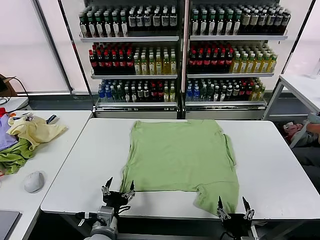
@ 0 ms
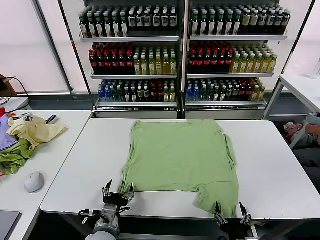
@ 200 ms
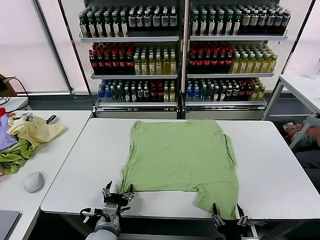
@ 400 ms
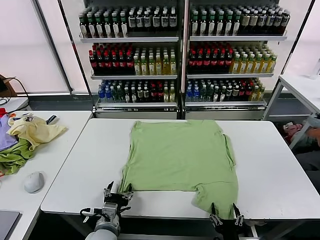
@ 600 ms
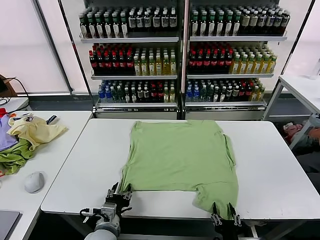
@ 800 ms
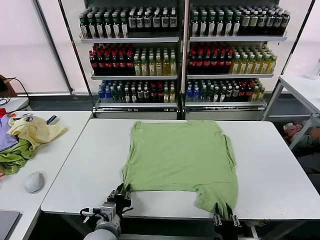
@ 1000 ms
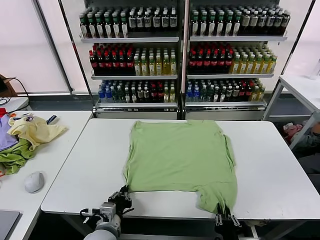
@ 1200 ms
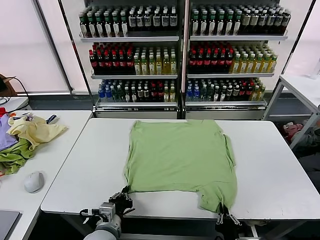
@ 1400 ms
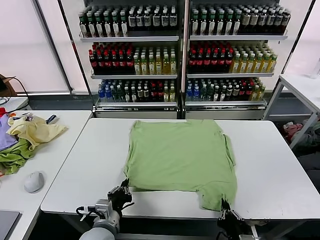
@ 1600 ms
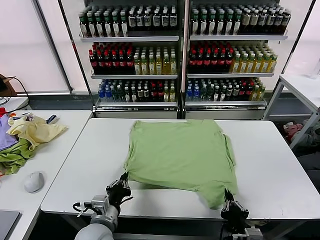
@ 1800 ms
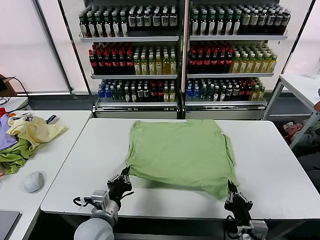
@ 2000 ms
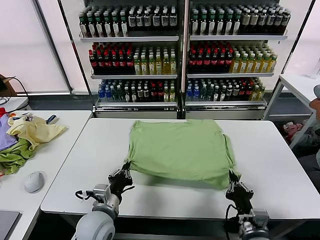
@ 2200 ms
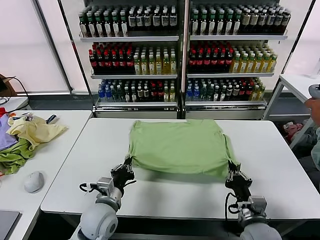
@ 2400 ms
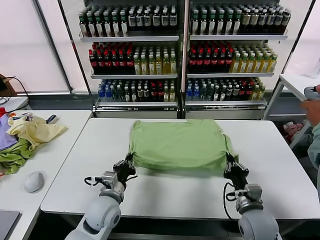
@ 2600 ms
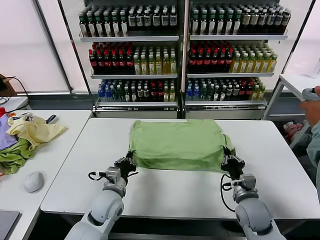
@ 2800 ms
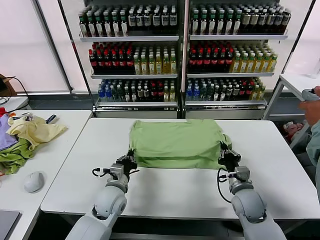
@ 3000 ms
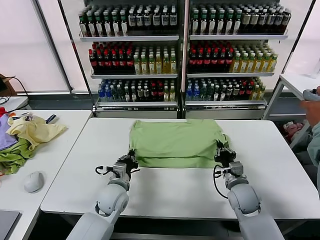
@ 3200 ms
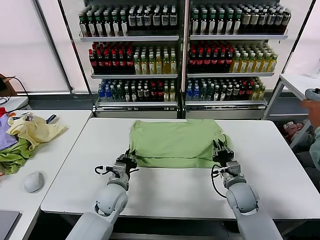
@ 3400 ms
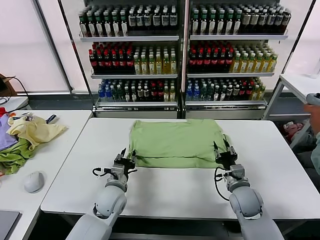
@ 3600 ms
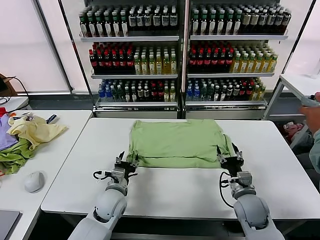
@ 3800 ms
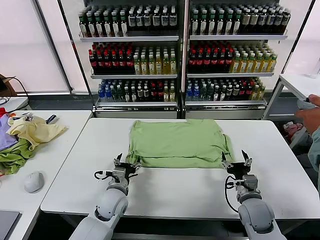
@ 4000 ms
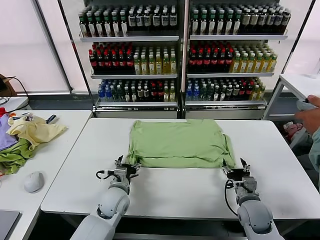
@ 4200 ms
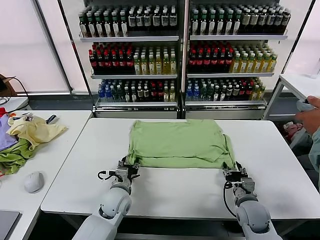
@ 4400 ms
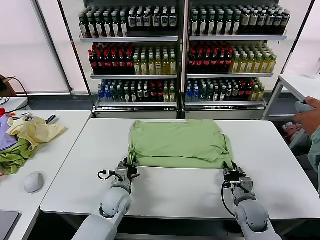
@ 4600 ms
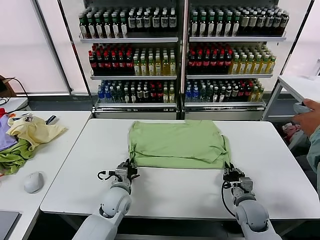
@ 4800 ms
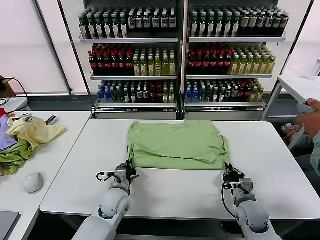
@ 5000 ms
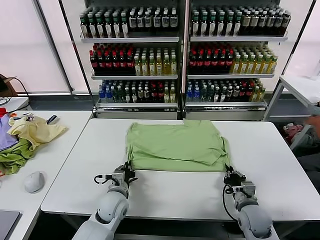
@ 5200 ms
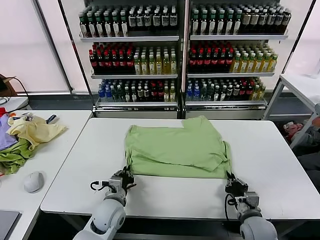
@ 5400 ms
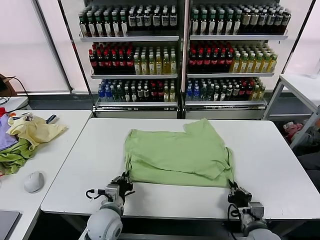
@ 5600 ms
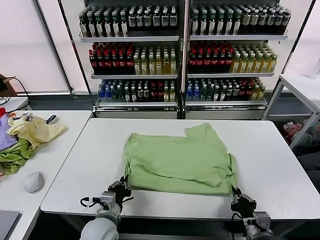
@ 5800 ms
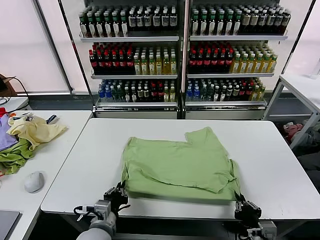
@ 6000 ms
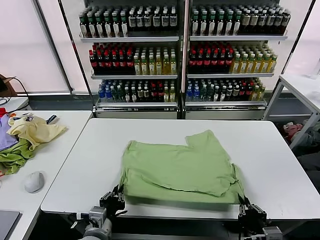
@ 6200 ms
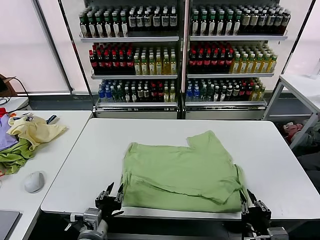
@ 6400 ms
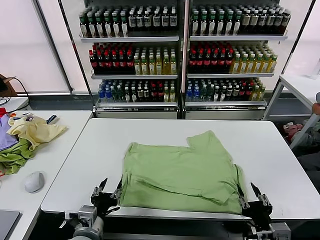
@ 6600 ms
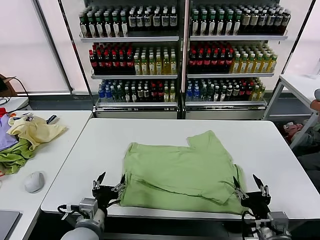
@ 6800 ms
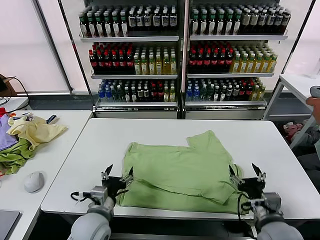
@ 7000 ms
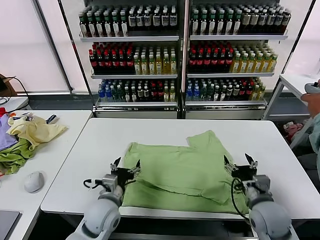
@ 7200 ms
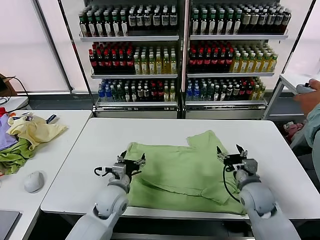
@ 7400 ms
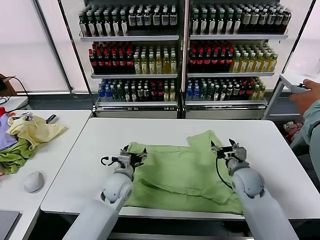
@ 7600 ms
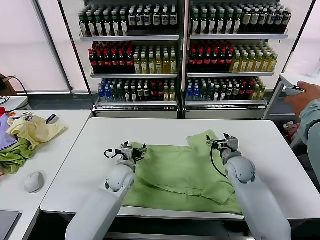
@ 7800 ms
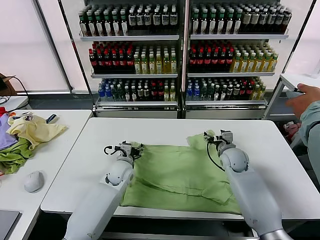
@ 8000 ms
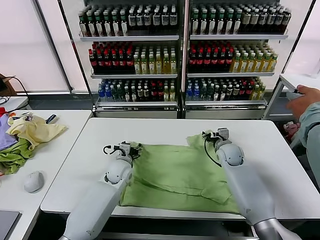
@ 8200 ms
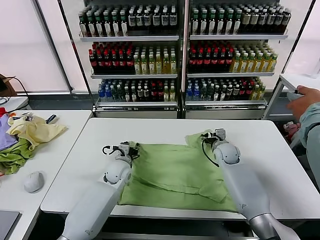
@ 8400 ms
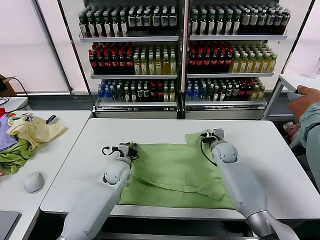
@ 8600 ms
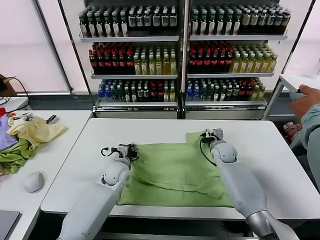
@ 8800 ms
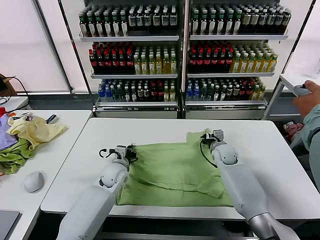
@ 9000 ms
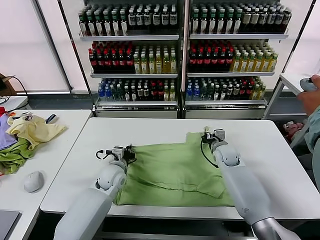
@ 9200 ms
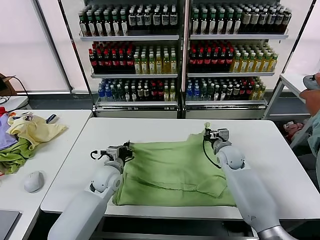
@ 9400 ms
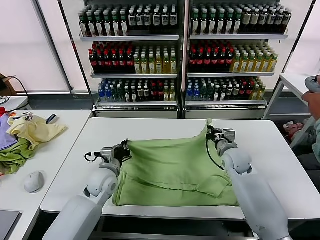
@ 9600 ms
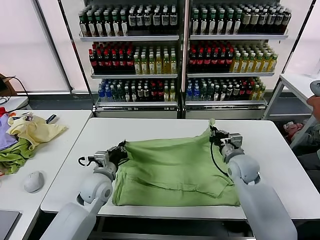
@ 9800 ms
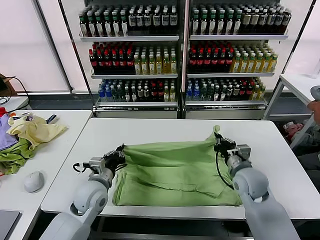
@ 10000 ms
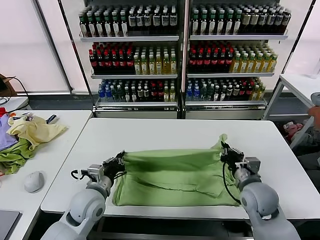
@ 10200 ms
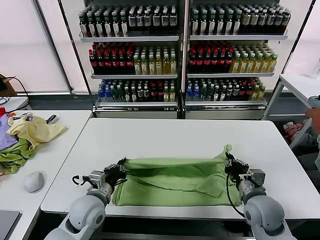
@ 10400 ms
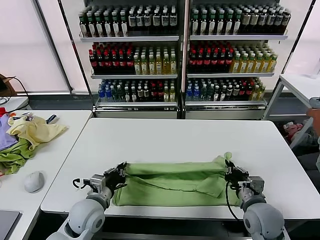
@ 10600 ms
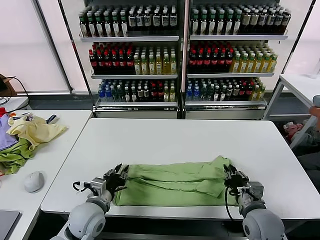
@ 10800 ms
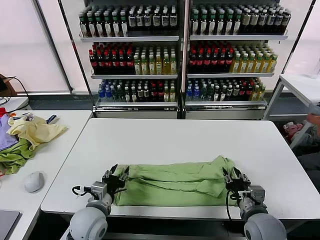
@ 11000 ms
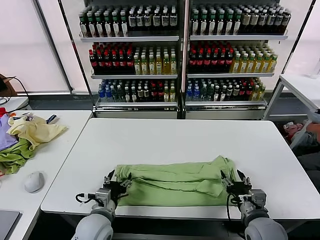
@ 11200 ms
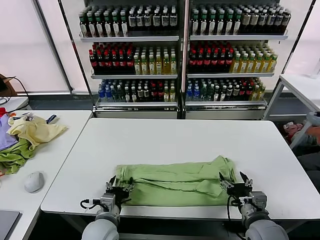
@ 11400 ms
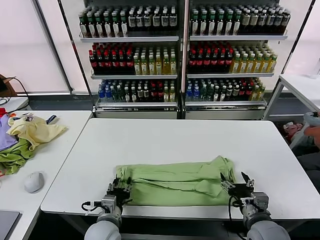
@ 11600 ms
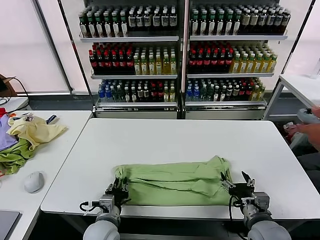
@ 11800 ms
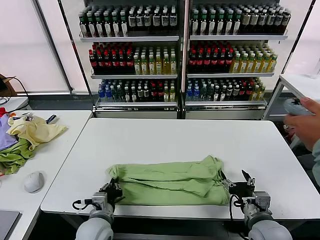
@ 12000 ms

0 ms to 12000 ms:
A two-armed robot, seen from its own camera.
Task of the whole recording: fold and organize the clothes.
Step, 0 ms to 1400 ms: use both grippers simultaneously to clamp the lower edge of the clothing fabric.
Step, 1600 ms to 3600 ms: use both grippers to drag the lower edge of the fabric forward and fold it over the upper edge.
Step, 3800 ms to 6400 ms: Drag the clothes downward with both gripper.
Step, 6600 ms to 9000 ms: use both grippers simultaneously to clamp the upper edge of the clothing fabric.
Step, 9200 ms to 11000 ms: use both grippers to drag the upper edge of the fabric backward and fold it over the lower edge.
Step, 11200 ms to 12000 ms: use the left gripper to clamp the left edge of the fabric.
1600 ms to 3000 ms: The right gripper moves forward, roughly 20 cm; the left gripper shifts some 15 cm forward.
3000 ms to 4400 ms: The right gripper changes place by roughly 5 cm, and opens up; the left gripper opens.
4400 ms to 6000 ms: Both grippers move backward, about 15 cm. The left gripper closes its fingers; the right gripper closes up.
6000 ms to 7600 ms: The left gripper is displaced forward by some 15 cm, and opens, while the right gripper shifts about 25 cm forward, and opens.
7600 ms to 9000 ms: The left gripper shifts about 5 cm forward, and closes up. The right gripper moves forward, about 10 cm, and closes up.
9000 ms to 10400 ms: The right gripper travels backward by roughly 25 cm. The left gripper travels backward by some 15 cm.
10400 ms to 12000 ms: Both grippers travel together backward, some 5 cm. The left gripper opens, then closes once more; the right gripper opens.

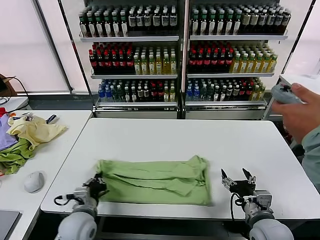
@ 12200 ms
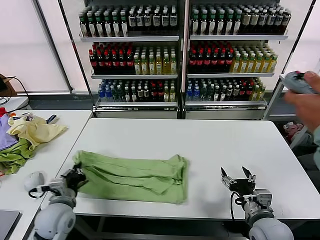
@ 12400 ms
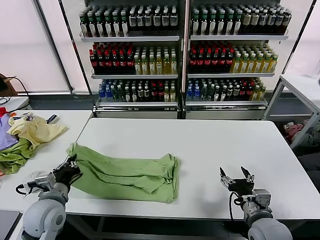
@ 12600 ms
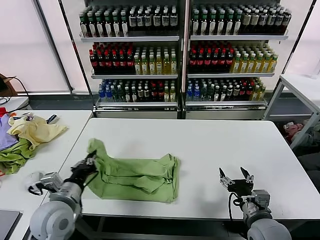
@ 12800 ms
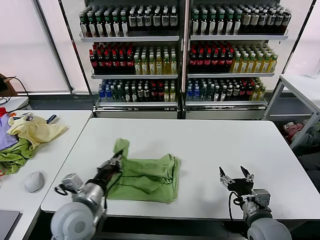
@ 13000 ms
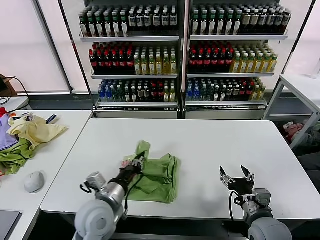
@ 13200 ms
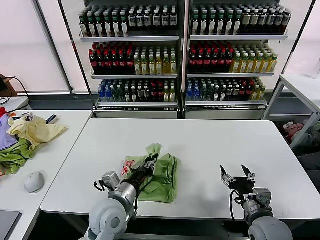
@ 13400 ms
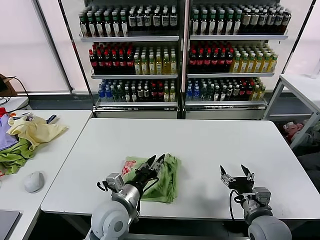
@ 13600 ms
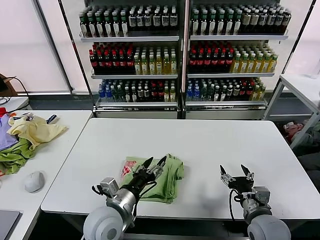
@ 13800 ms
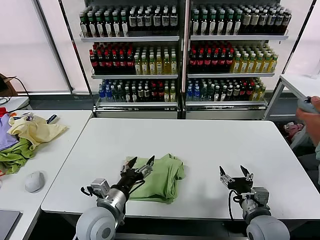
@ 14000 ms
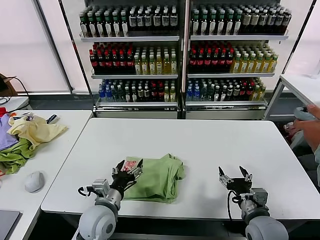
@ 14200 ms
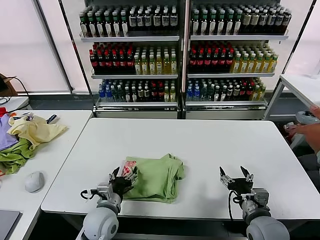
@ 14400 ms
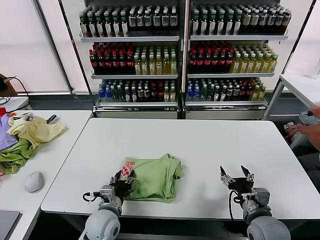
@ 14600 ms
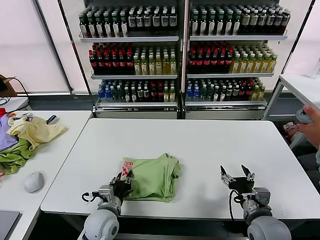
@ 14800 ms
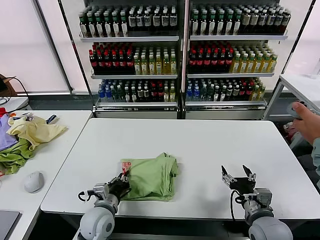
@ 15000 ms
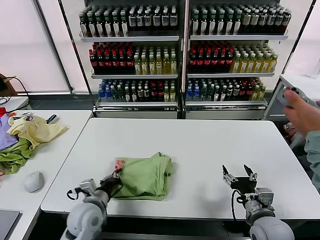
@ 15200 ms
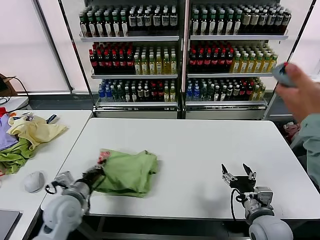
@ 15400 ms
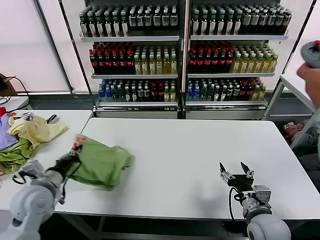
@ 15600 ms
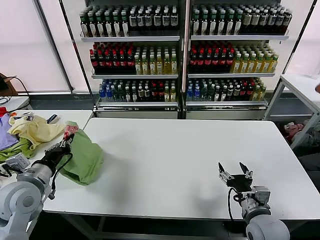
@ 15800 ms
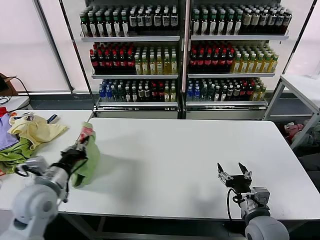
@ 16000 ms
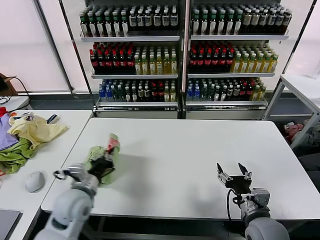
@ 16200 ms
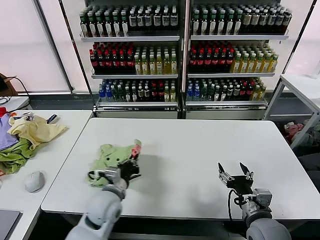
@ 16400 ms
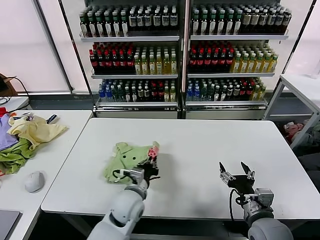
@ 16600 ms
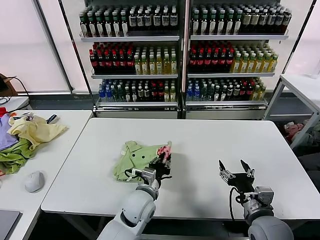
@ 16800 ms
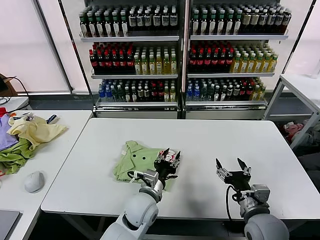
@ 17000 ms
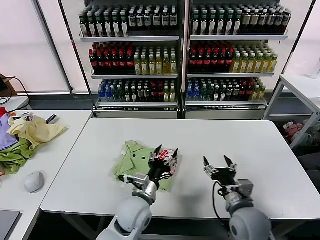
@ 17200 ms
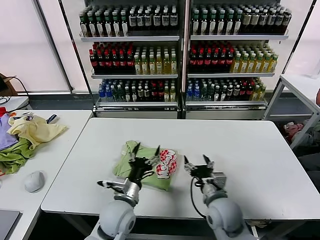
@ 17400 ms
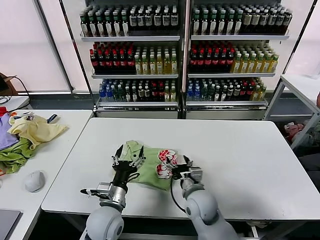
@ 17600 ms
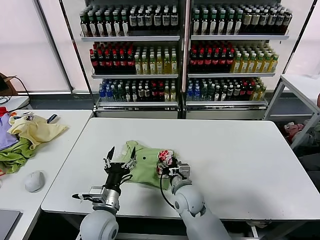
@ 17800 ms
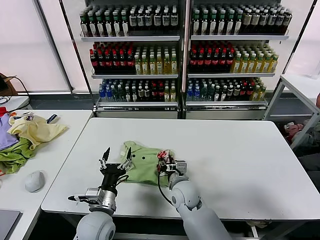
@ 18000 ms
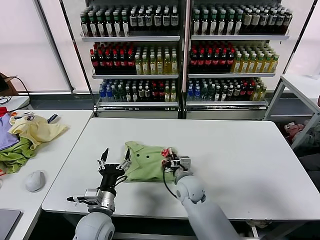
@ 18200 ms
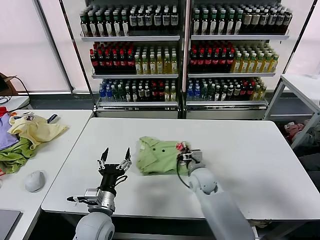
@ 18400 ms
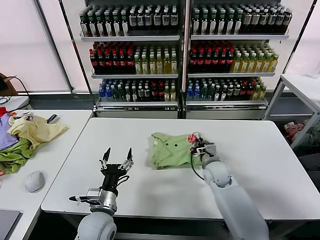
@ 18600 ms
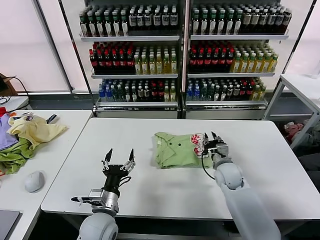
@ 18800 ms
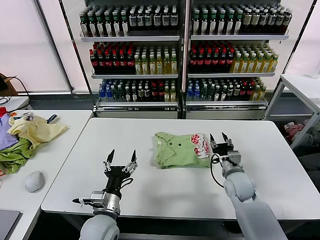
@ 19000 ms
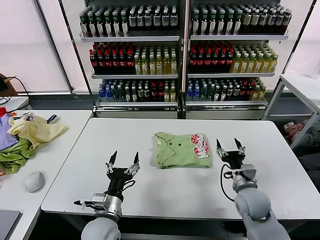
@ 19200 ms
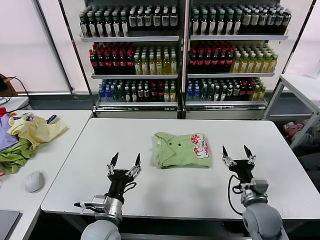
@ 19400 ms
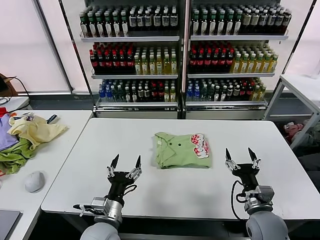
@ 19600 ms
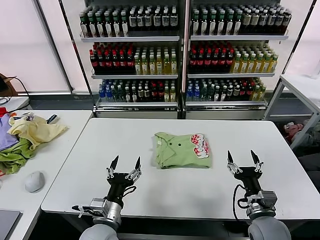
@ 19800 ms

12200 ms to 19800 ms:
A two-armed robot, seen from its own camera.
Task of the whole recording: fold and organize the clothes.
Step, 12200 ms to 13800 ms: use the left gripper to drag the left edge of the fabric to the left and folds it over the right edge.
Step, 14000 ms to 17000 ms: Flip the folded clothes over with left gripper.
Step, 17200 ms to 18600 ms: Drag the clothes to the center of the table.
12200 ms to 13800 ms: The left gripper moves to the right and upward, approximately 10 cm, and opens its fingers.
13800 ms to 15200 ms: The left gripper shifts about 10 cm to the left and downward, and closes.
15200 ms to 16800 ms: The left gripper goes approximately 15 cm to the right.
16800 ms to 18200 ms: The left gripper goes approximately 15 cm to the left and backward, and opens its fingers; the right gripper goes about 25 cm to the left and forward, and closes.
18200 ms to 19800 ms: The right gripper shifts some 25 cm to the right and backward, and opens its fingers.
